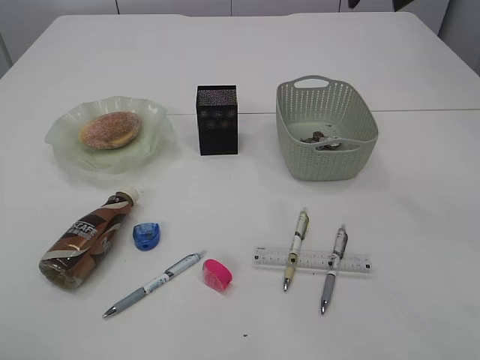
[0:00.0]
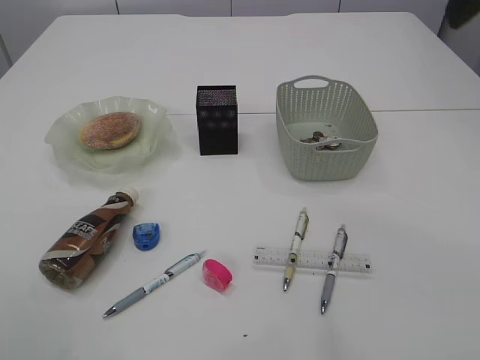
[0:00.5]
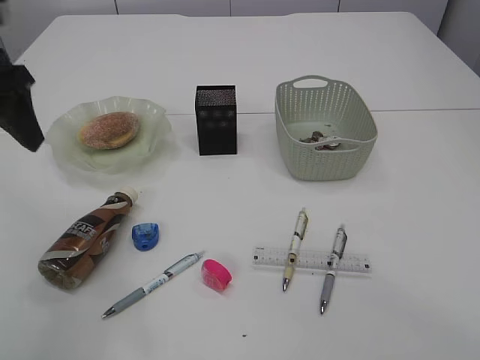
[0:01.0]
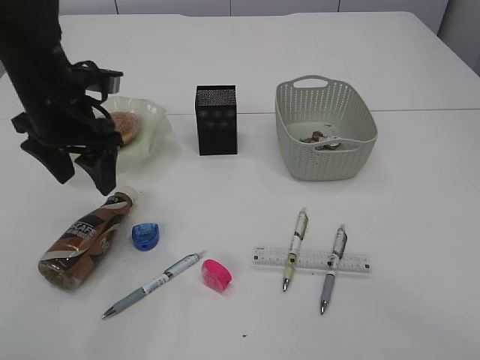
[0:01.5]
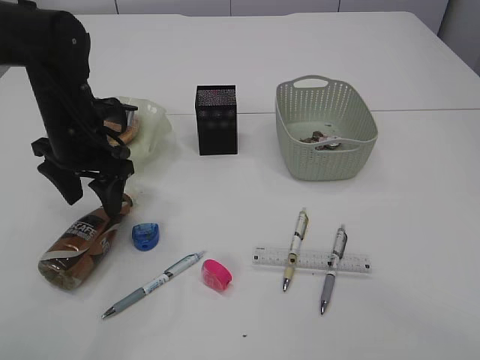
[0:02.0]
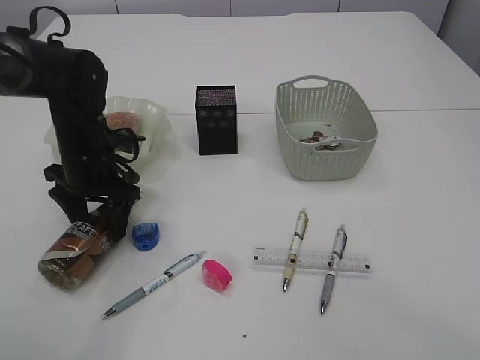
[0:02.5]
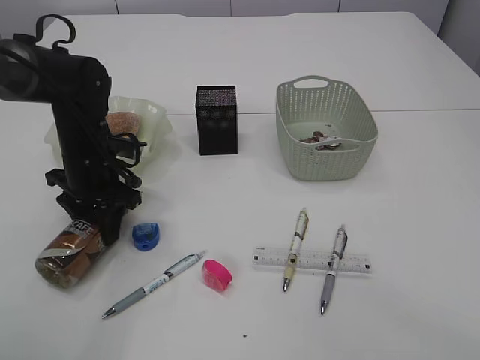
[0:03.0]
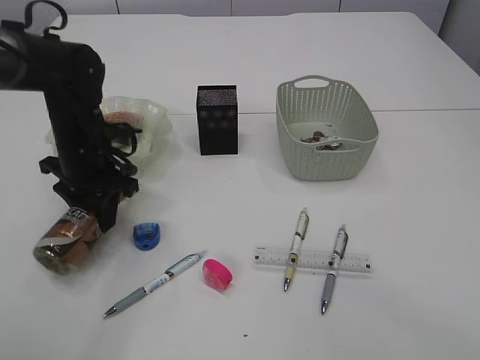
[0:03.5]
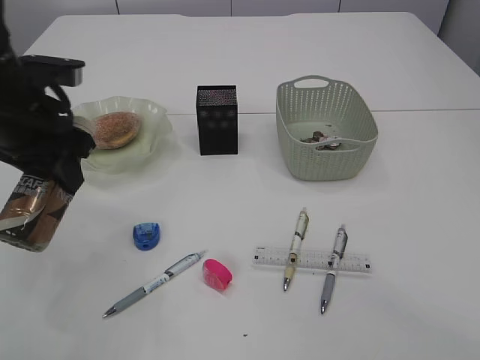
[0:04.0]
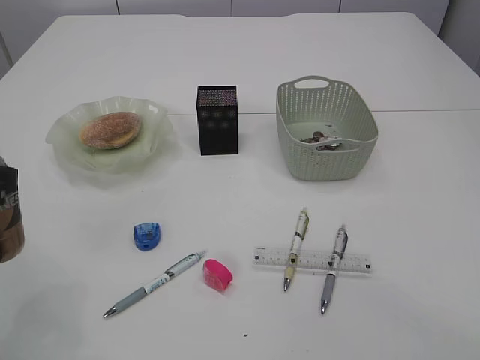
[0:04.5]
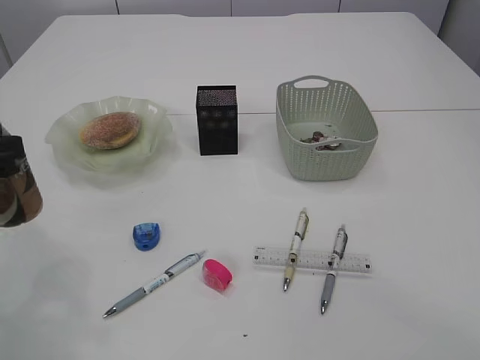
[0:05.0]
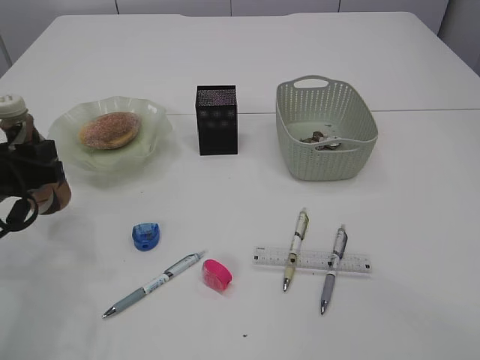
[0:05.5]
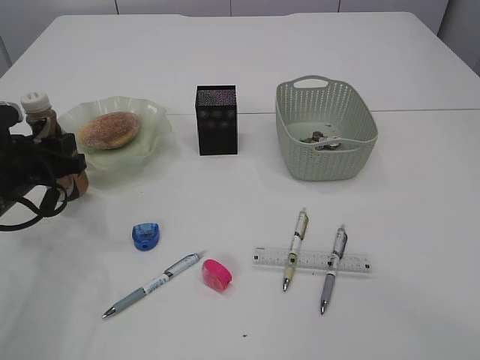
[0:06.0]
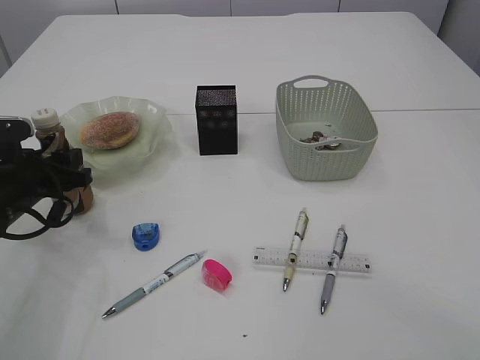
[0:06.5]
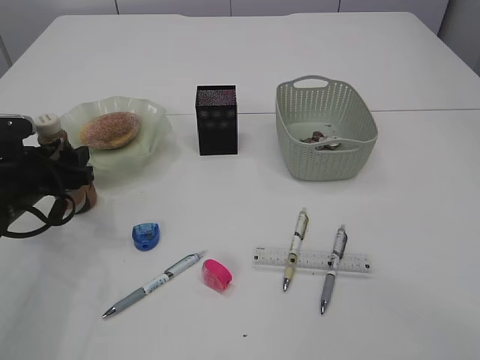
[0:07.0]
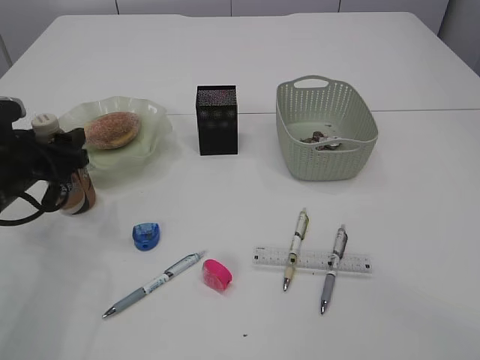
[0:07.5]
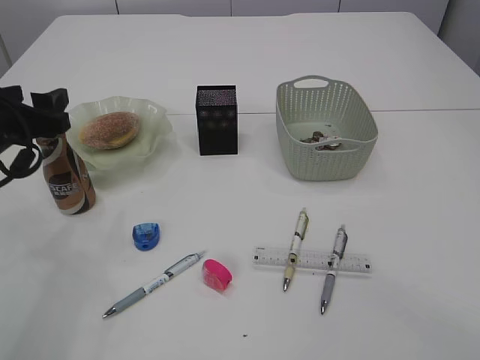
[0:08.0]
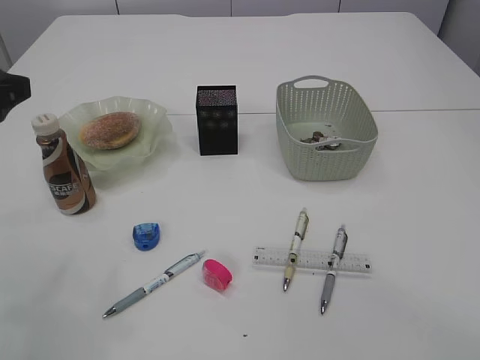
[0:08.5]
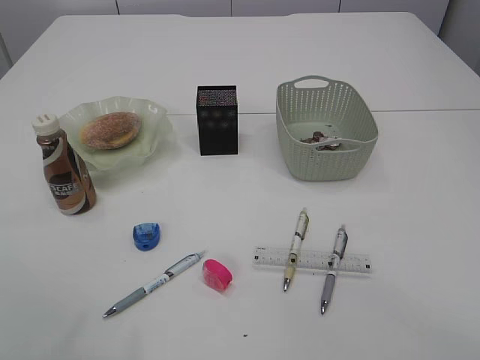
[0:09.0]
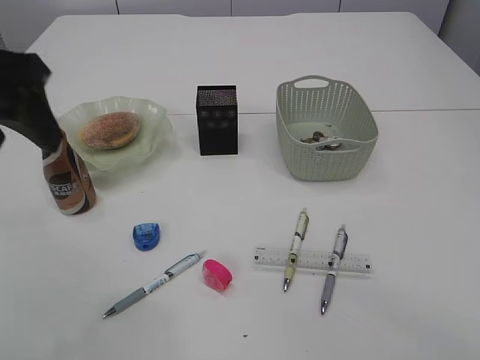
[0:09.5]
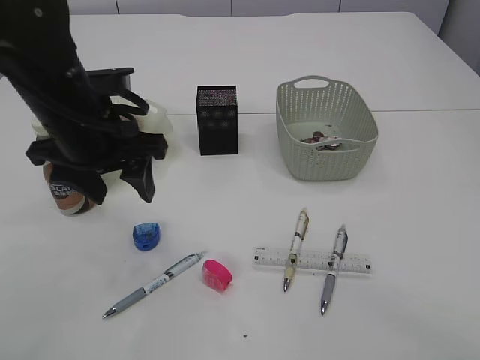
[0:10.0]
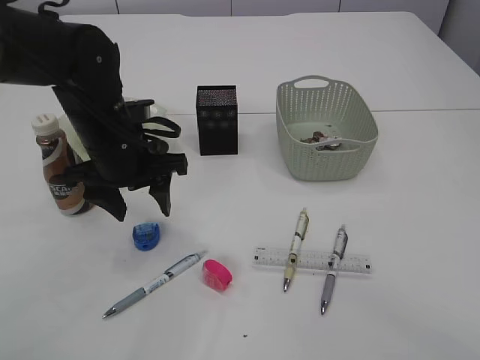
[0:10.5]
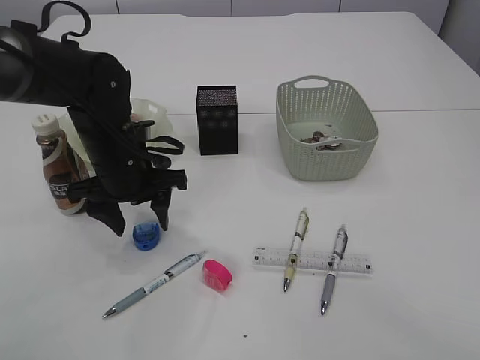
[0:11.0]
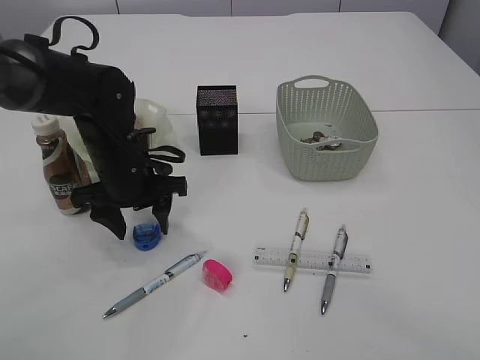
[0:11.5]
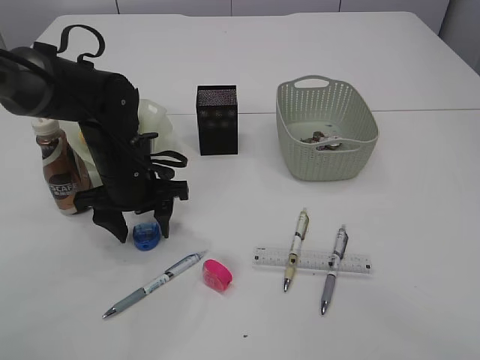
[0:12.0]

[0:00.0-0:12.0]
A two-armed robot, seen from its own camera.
Step, 0:00.0 to 0:03.5: Pick up the bottle with the left arm.
Step, 0:04.0 to 0:08.0: Place the bottle.
0:00.0 to 0:02.0: The left gripper is displaced downward and forward by roughly 35 cm, and opens up.
0:02.0 to 0:04.0: The left gripper is displaced upward and backward by about 10 cm, and closes its fingers.
0:04.0 to 0:06.0: The left gripper goes about 10 cm downward and to the left, and reaches roughly 15 cm backward, then returns.
0:06.0 to 0:08.0: The left gripper moves upward, approximately 5 cm, and opens.
0:08.0 to 0:10.0: The left gripper moves to the right, some 10 cm, and reaches roughly 20 cm upward, then returns.
0:10.0 to 0:12.0: The left gripper heads downward and forward, covering roughly 15 cm.

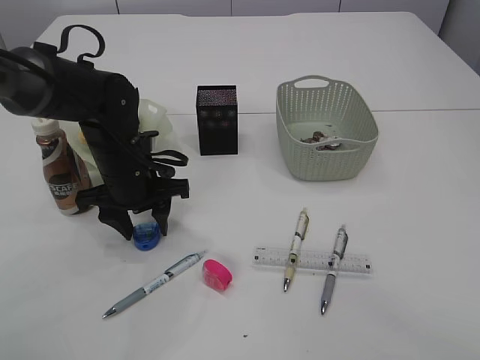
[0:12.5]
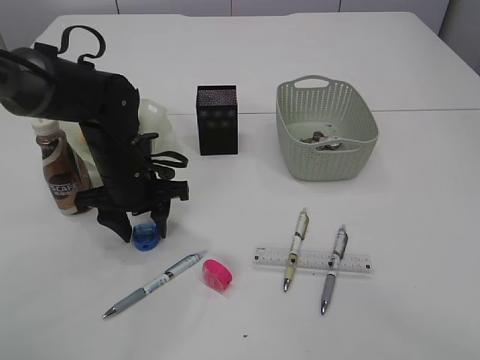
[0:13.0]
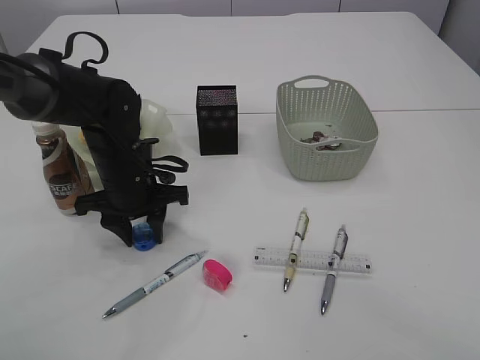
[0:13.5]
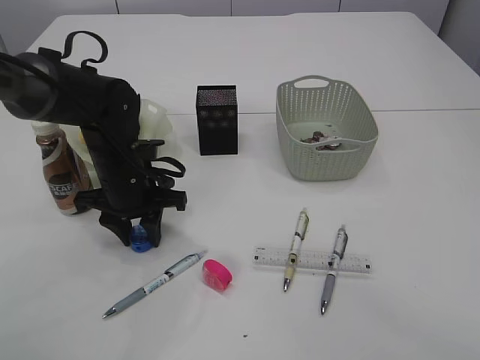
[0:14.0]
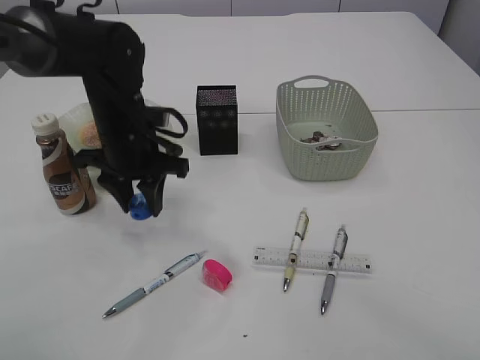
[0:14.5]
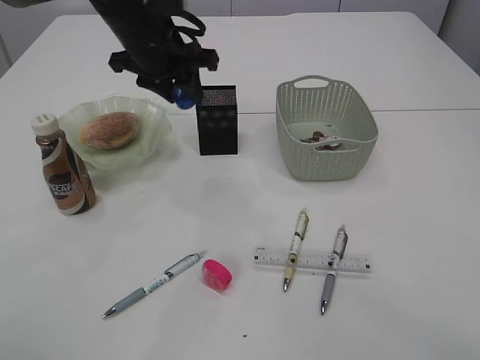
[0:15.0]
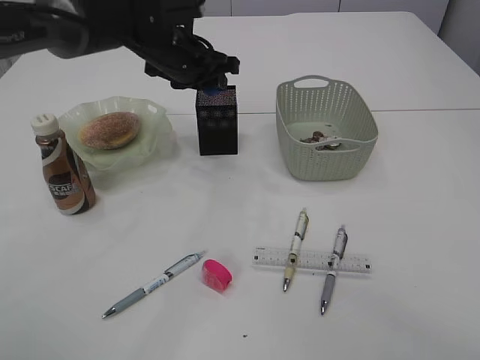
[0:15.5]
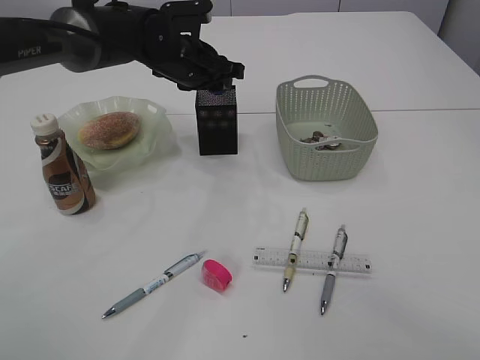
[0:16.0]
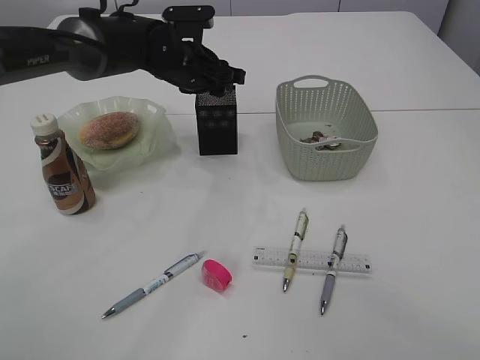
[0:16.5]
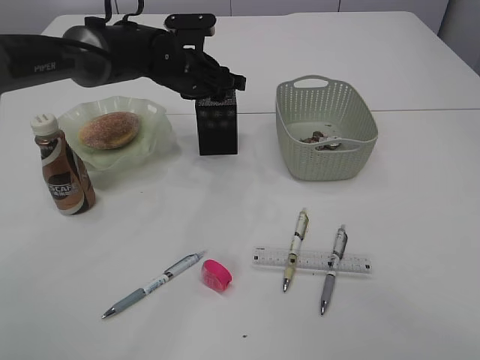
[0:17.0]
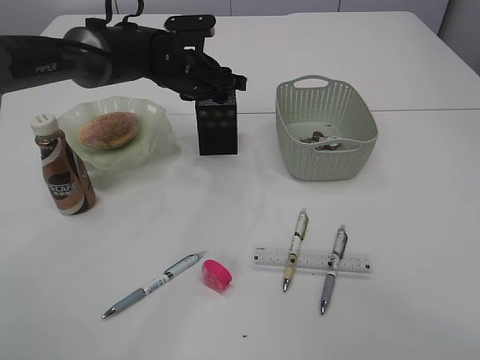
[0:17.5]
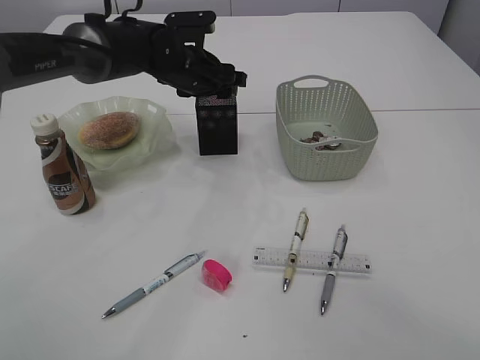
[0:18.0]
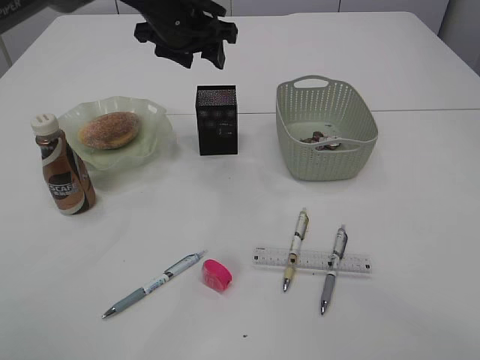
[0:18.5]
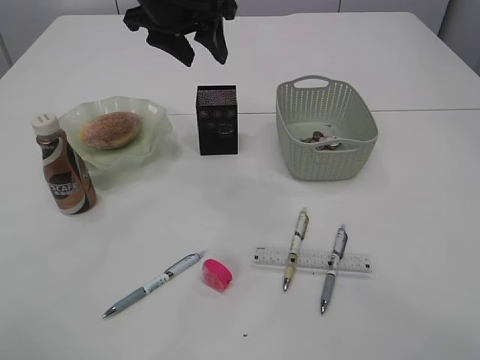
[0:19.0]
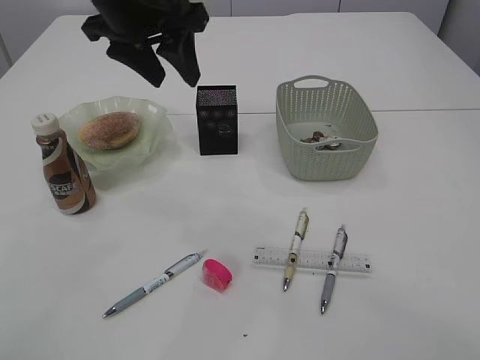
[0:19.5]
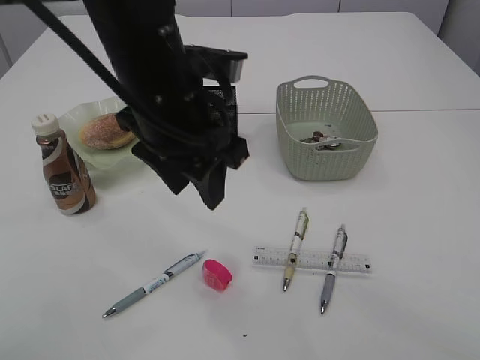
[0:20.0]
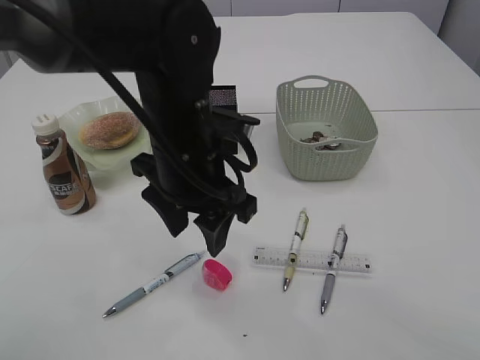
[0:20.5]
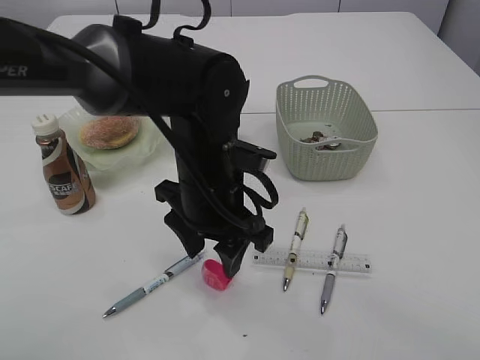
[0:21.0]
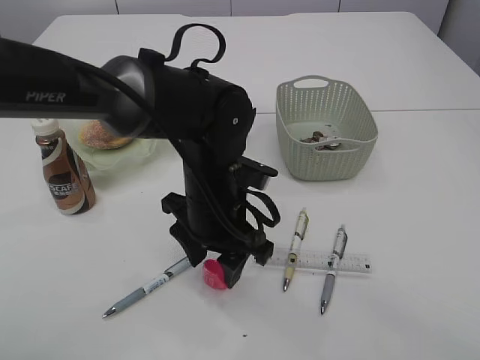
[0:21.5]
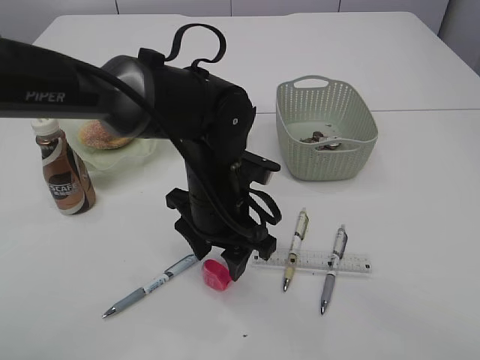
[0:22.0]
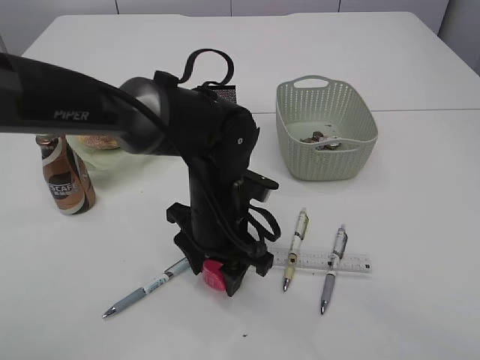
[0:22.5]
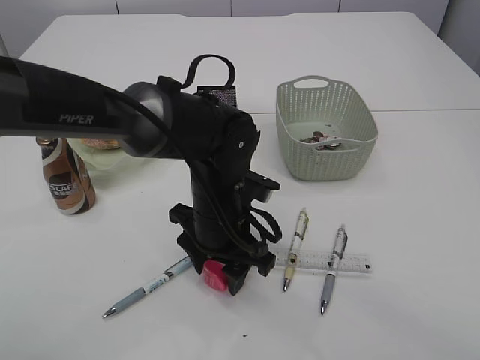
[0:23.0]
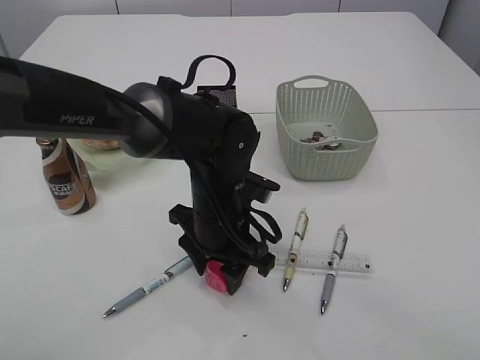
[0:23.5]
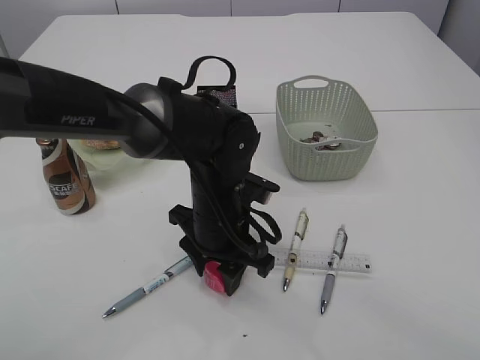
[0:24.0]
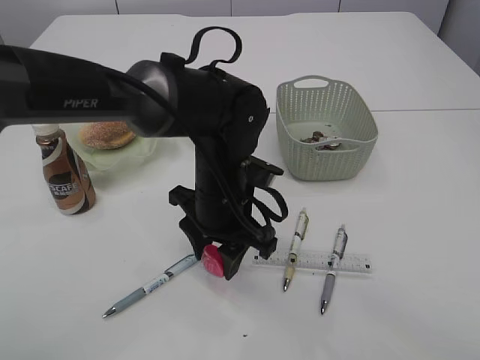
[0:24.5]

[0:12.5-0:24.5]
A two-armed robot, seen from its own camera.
Step, 0:12.5 to 0:14.5: Pick up the blue pencil sharpener.
Step, 0:15.0 to 0:17.5: Place the blue pencil sharpener into the pen holder.
Step, 0:18.0 to 0:24.5: Pick up the red pencil sharpener.
0:12.5 to 0:14.5: There are only small adjustments of the grippers.
0:14.5 to 0:16.5: The left gripper shifts roughly 15 cm forward and to the right.
0:16.5 to 0:18.5: The left gripper travels upward by some 10 cm.
0:18.5 to 0:20.5: The left gripper is displaced backward by approximately 20 cm.
0:20.5 to 0:22.5: The left gripper heads downward, covering approximately 10 cm.
0:22.5 to 0:24.5: Both grippers stay put.

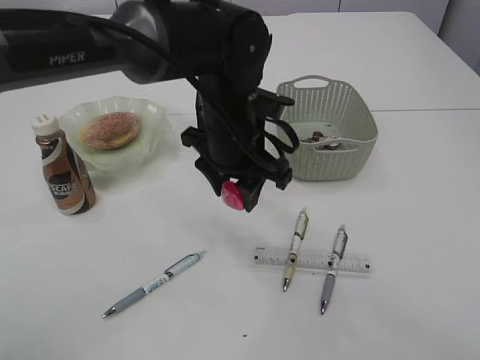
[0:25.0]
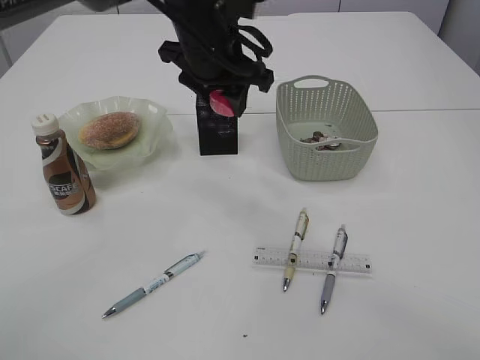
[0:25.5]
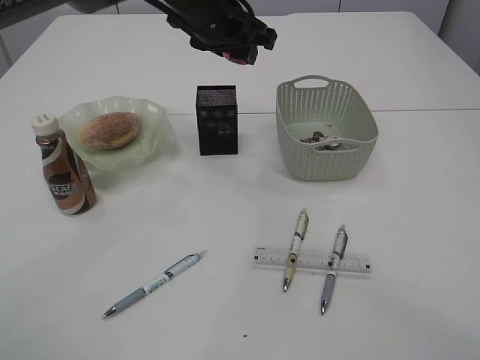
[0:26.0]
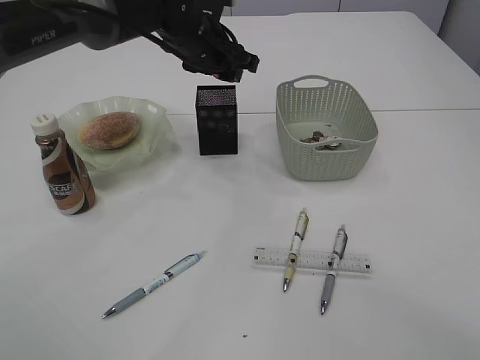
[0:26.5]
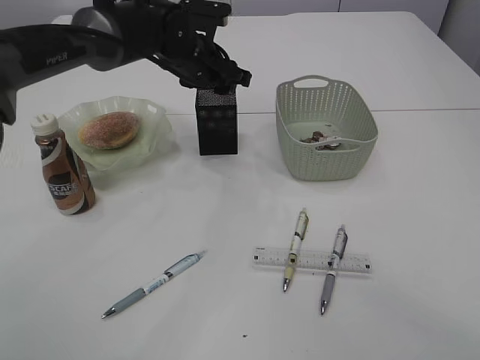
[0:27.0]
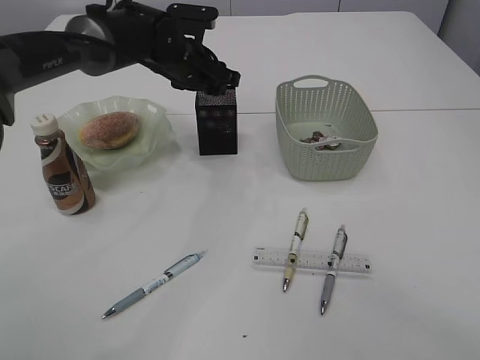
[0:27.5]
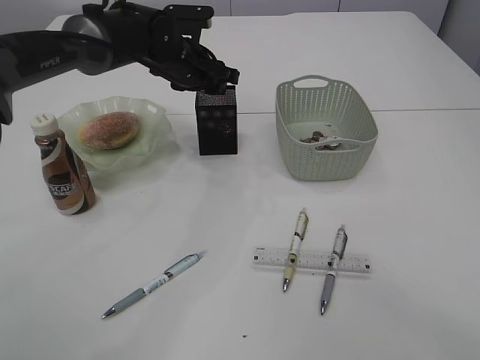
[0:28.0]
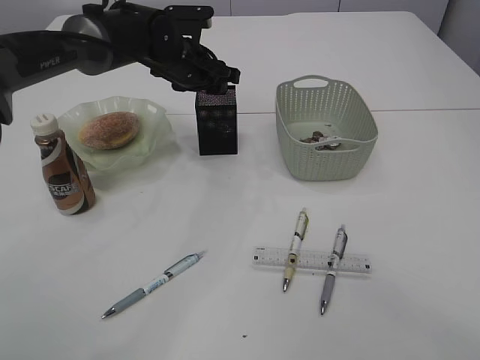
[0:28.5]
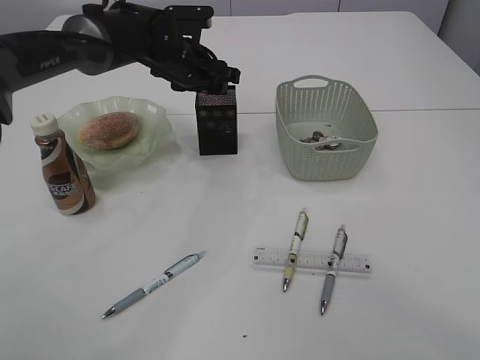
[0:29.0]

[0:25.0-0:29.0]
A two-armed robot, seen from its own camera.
0:25.0 to 0:27.0: The left gripper goes about 15 cm forward and to the left.
0:27.0 to 0:29.0: There are only small adjustments of the grippers.
